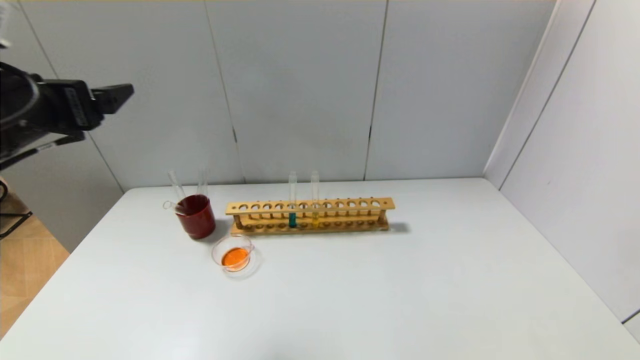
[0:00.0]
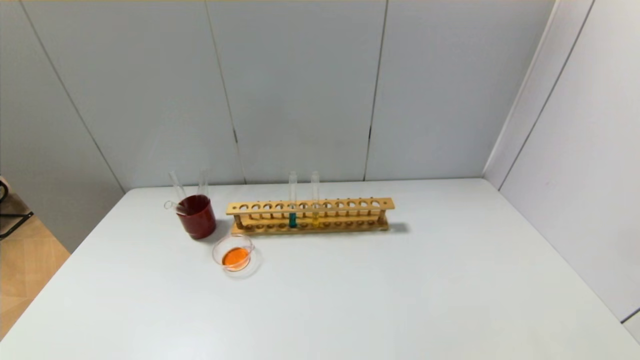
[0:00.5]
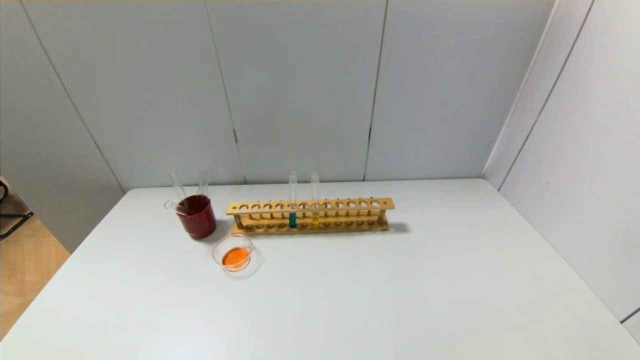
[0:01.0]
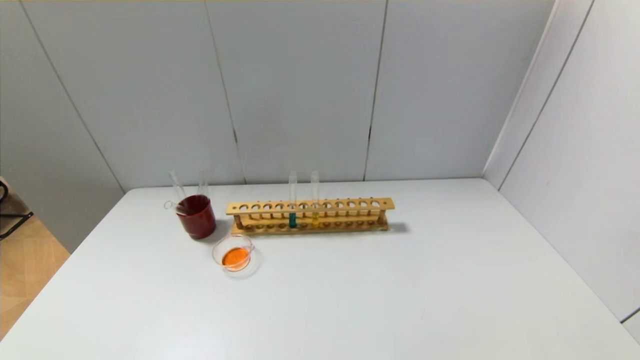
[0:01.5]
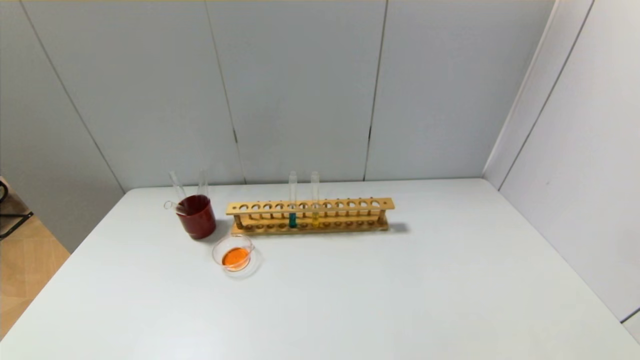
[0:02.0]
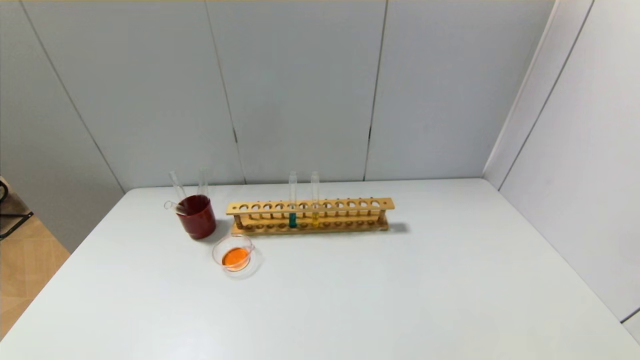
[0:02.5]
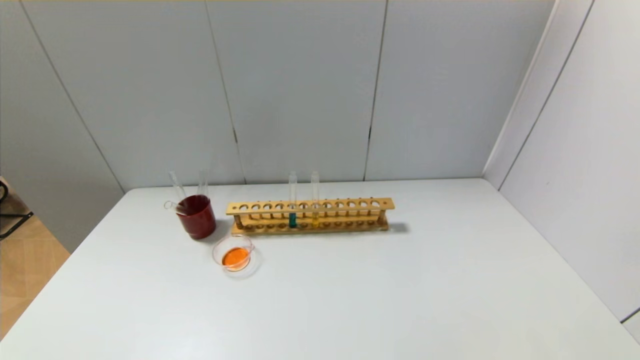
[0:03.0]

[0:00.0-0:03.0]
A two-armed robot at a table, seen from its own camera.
0:00.0 to 0:01.5: The left gripper moves backward and downward, about 30 cm.

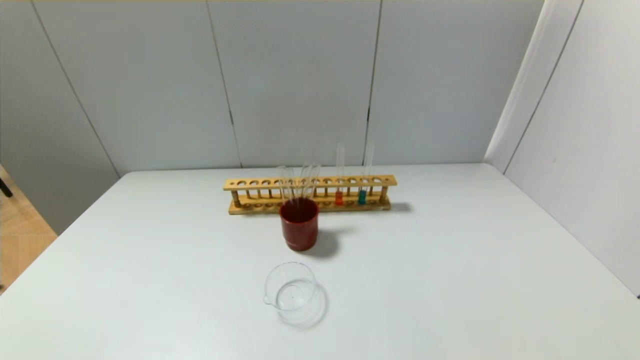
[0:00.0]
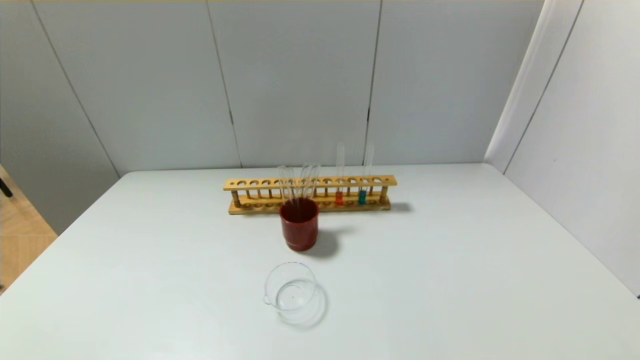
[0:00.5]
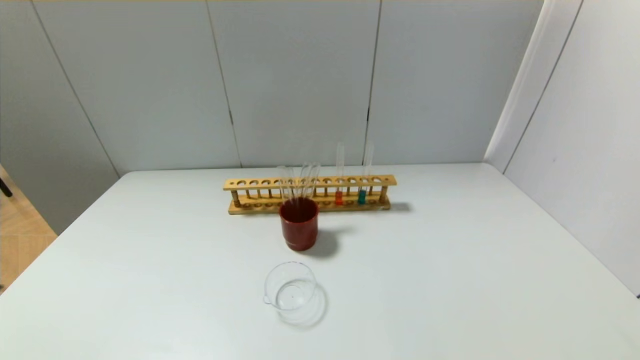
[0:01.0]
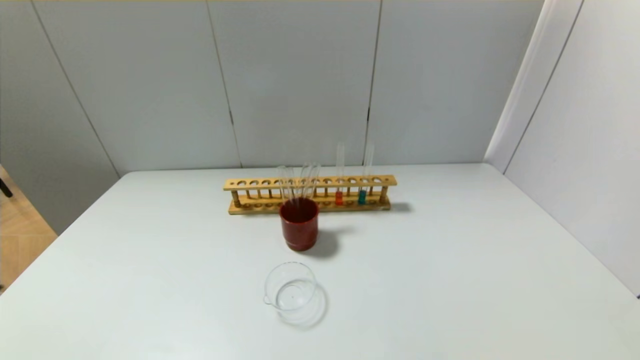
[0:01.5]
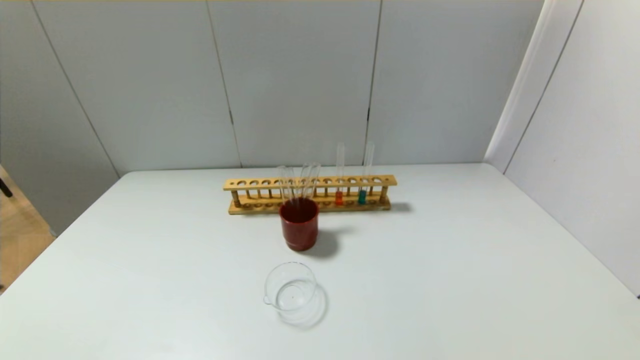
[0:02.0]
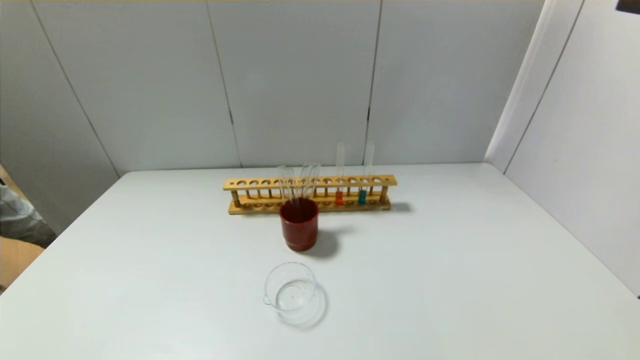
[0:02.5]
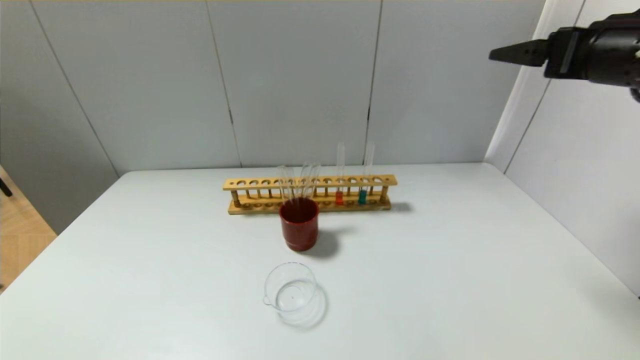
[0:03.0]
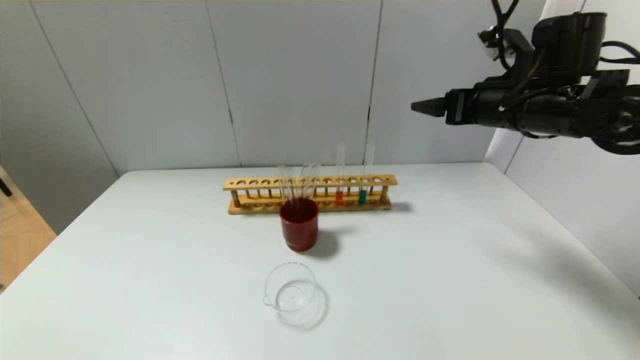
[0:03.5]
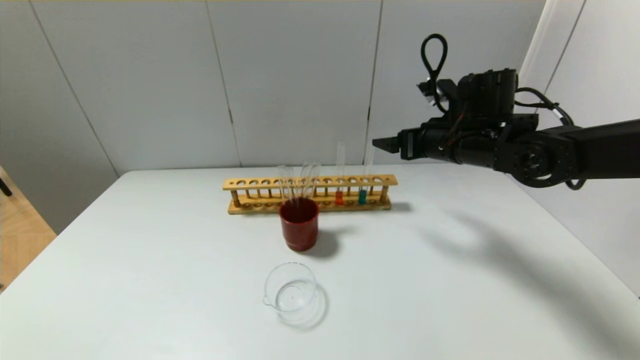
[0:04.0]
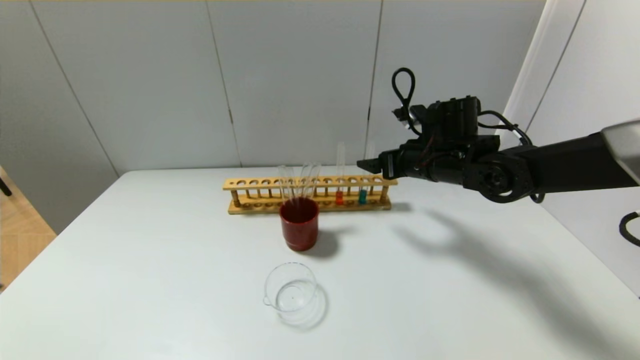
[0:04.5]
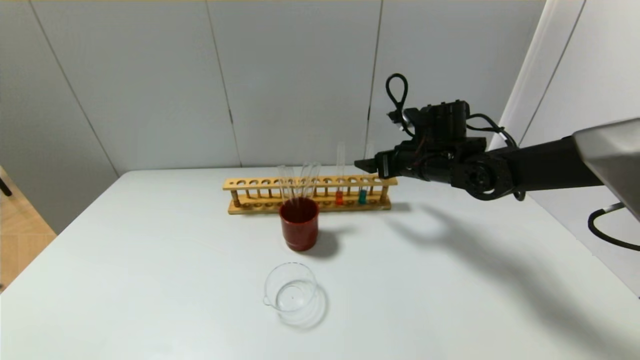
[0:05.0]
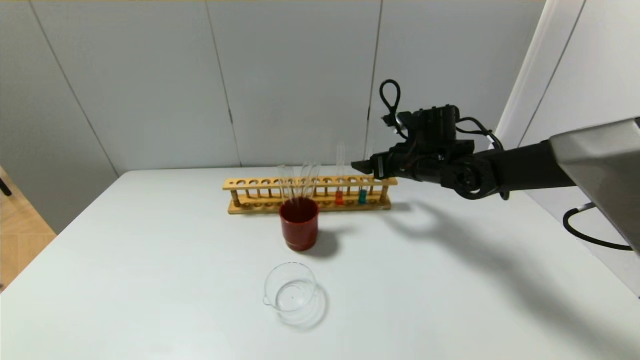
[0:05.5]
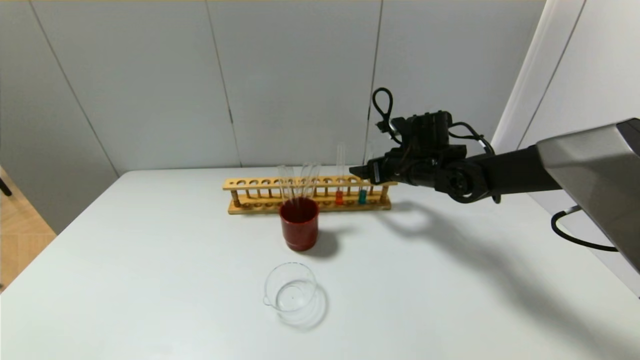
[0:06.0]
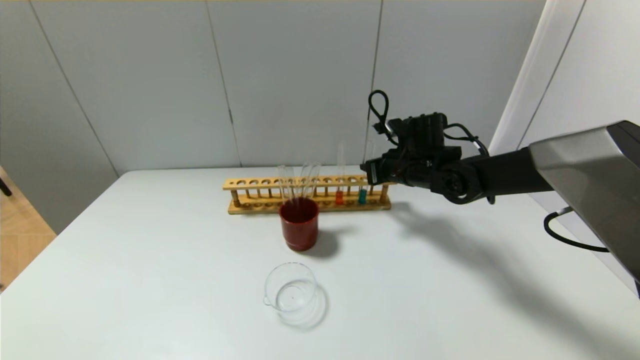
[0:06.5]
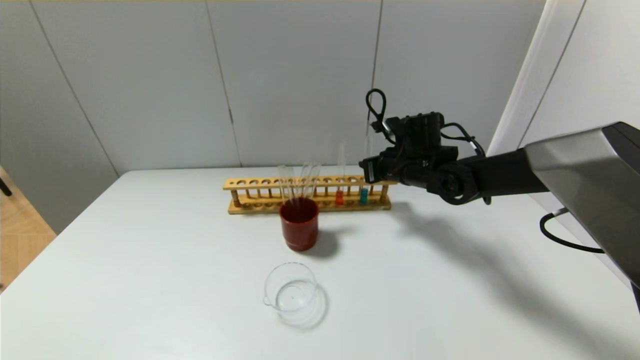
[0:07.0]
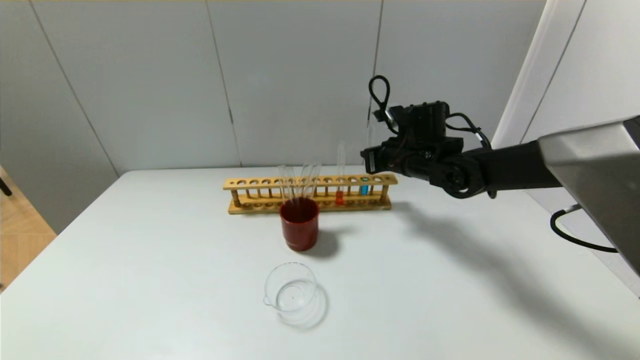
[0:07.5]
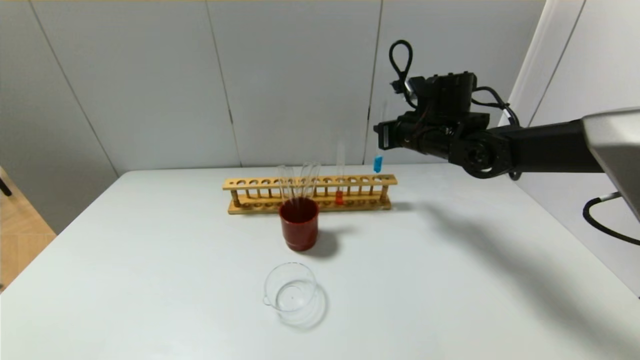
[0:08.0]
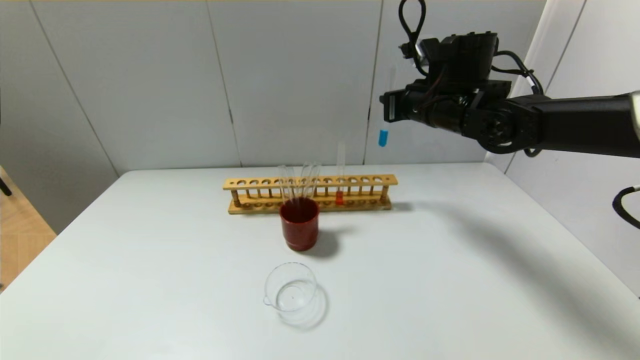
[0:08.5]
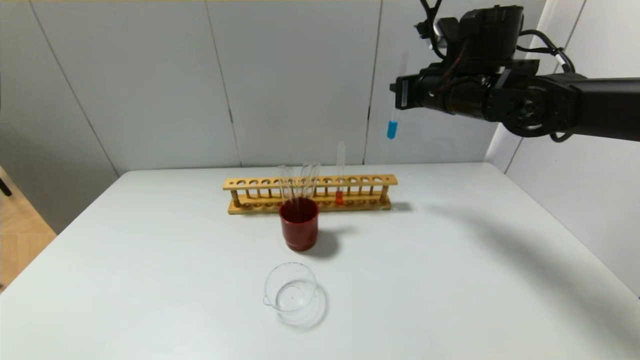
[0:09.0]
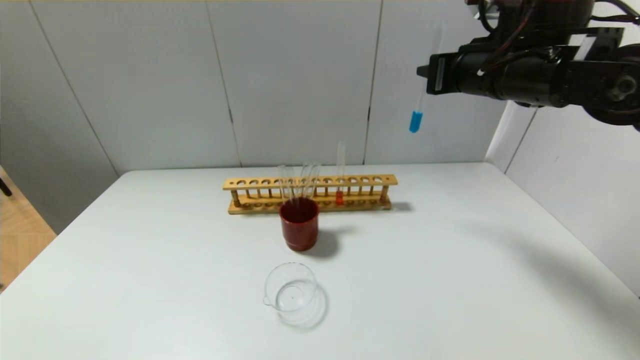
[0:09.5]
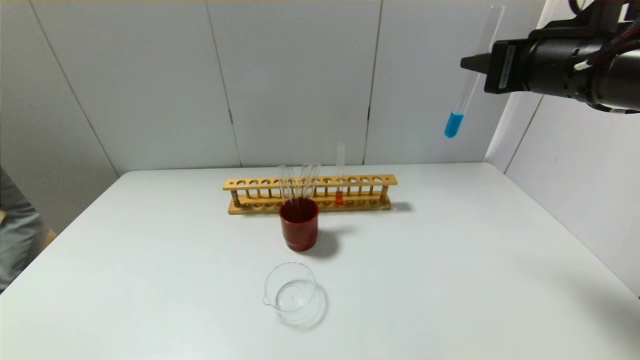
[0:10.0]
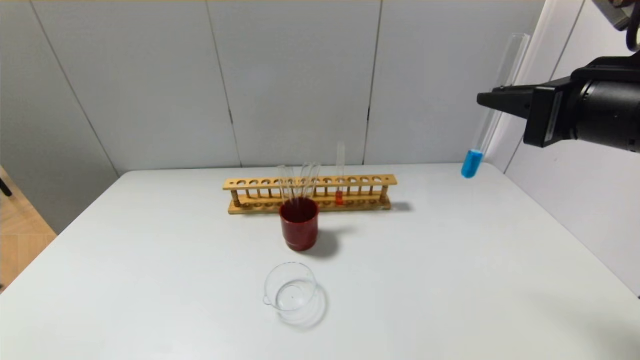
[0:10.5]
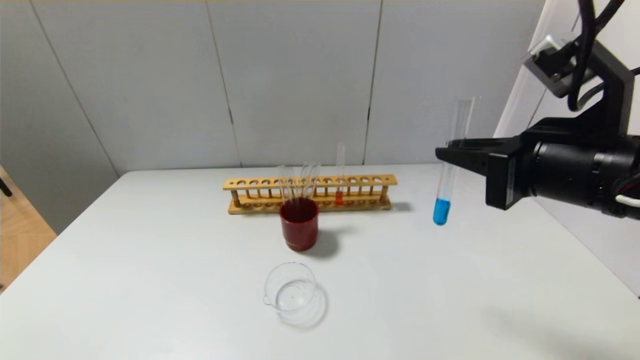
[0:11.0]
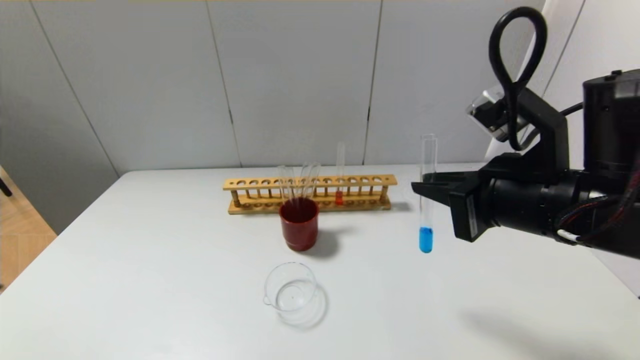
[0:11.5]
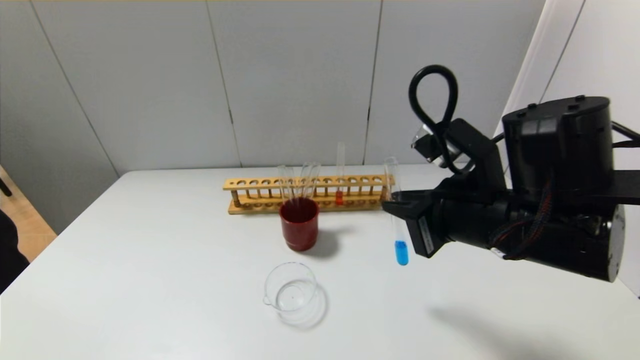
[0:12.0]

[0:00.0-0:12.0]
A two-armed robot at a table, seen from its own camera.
Step, 0:00.0 to 0:06.5: Grasp the blue reagent with the right gripper.
0:02.0 to 0:04.0: The right gripper goes roughly 40 cm forward, downward and to the left.
0:04.0 to 0:06.0: The right gripper heads downward, covering approximately 5 cm.
0:06.0 to 0:08.0: The right gripper shifts about 5 cm upward, and closes up.
0:08.0 to 0:10.0: The right gripper goes approximately 20 cm backward, upward and to the right.
0:10.0 to 0:12.0: The right gripper is displaced downward, to the left and backward by roughly 15 cm.

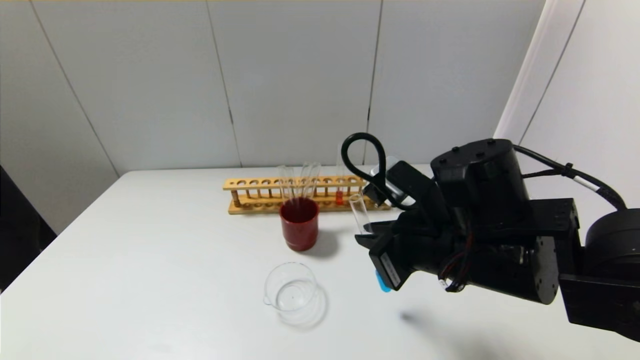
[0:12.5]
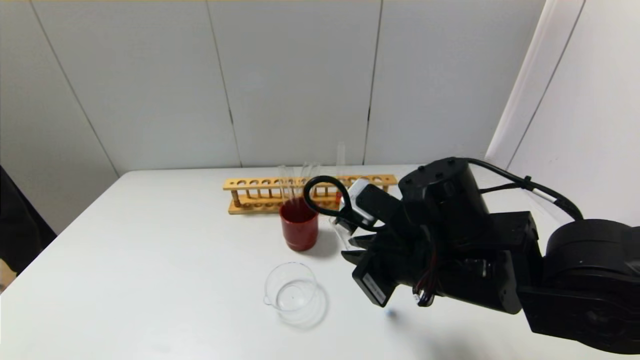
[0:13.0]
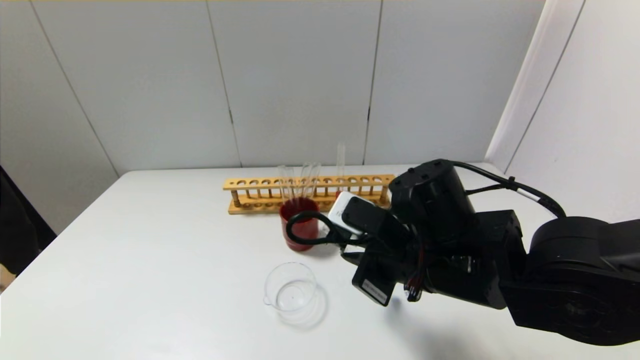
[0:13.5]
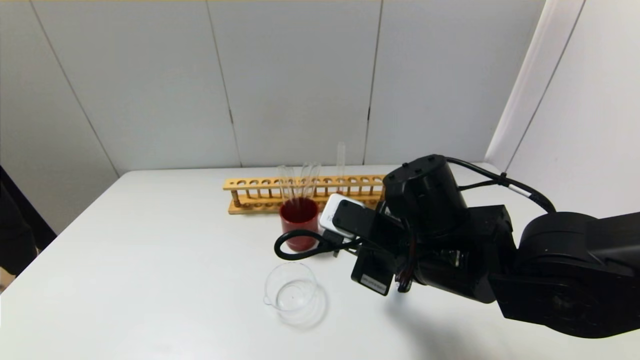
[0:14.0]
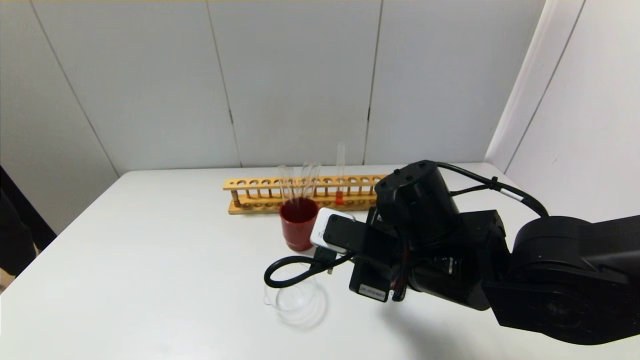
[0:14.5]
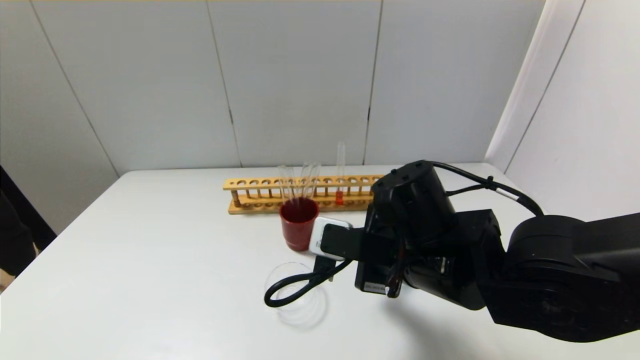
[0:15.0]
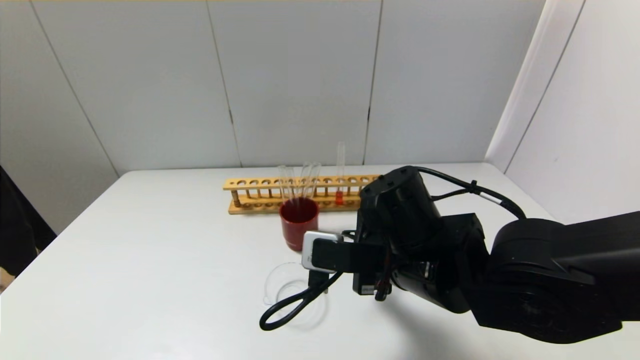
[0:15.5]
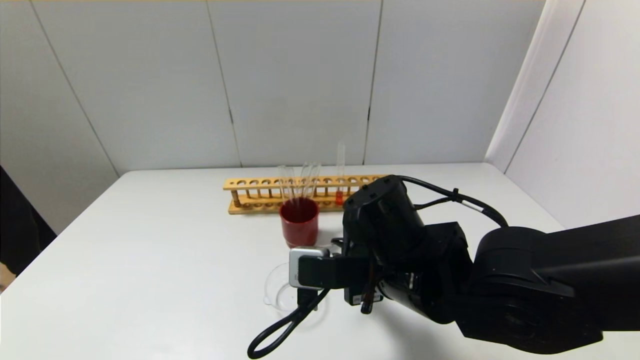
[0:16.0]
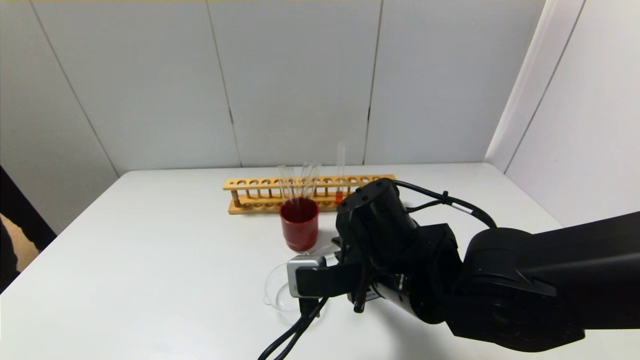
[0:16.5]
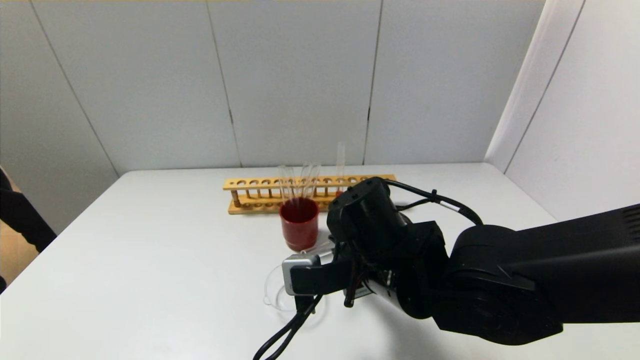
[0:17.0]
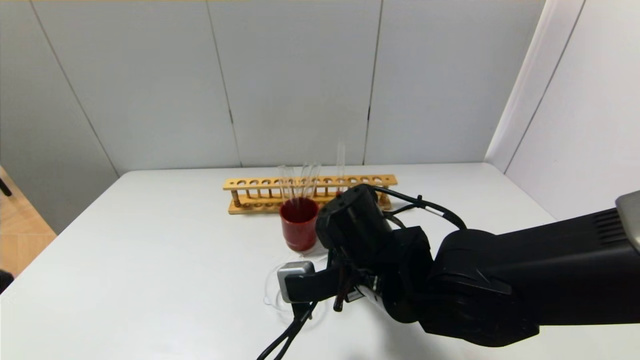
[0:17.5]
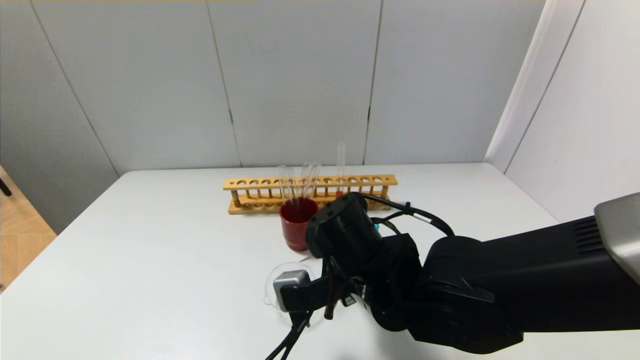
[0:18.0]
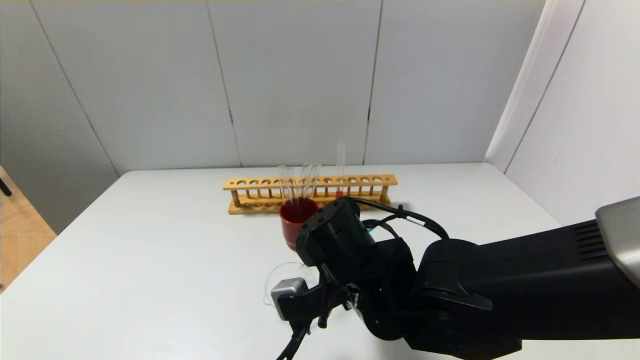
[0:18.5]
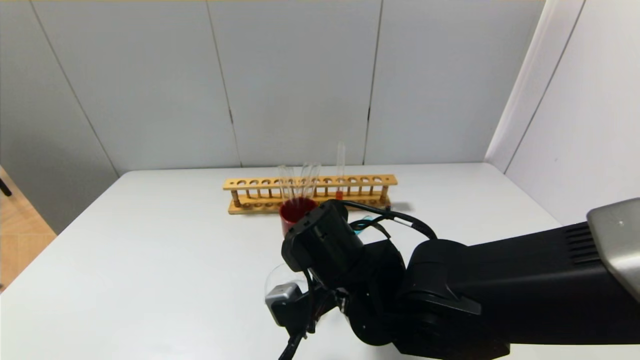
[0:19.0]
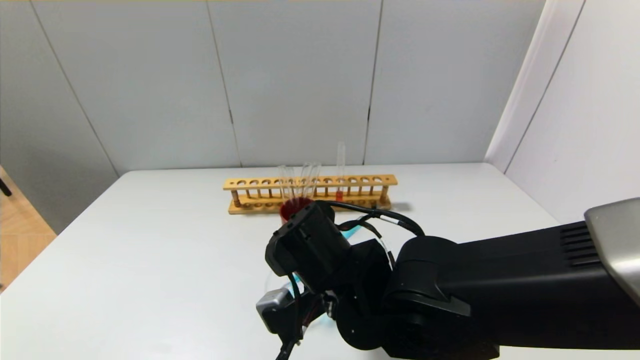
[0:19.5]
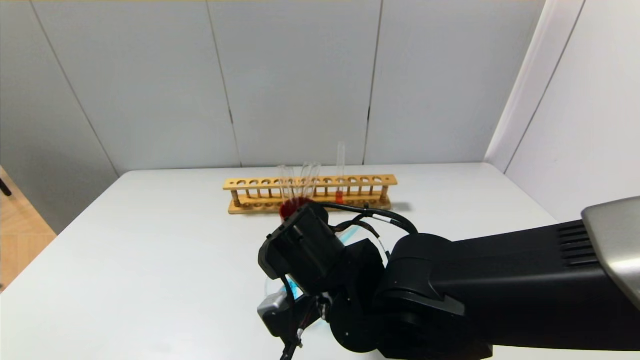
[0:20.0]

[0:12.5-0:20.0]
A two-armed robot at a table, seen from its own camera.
0:16.5 to 0:18.0: The grippers make only small movements.
0:18.0 to 0:20.0: The grippers make only small movements.
